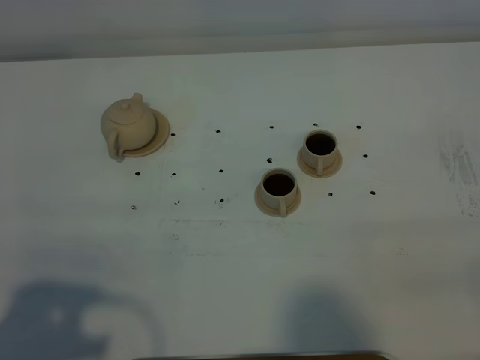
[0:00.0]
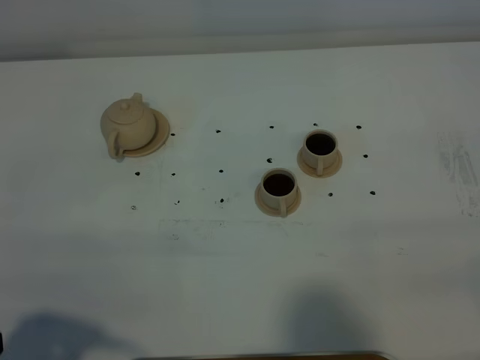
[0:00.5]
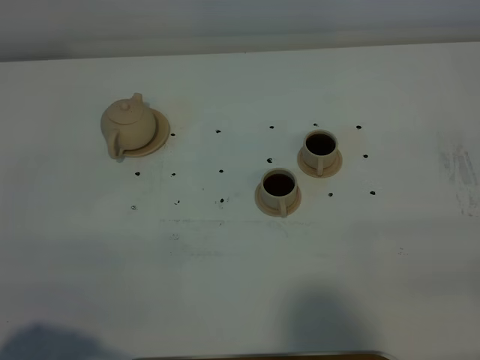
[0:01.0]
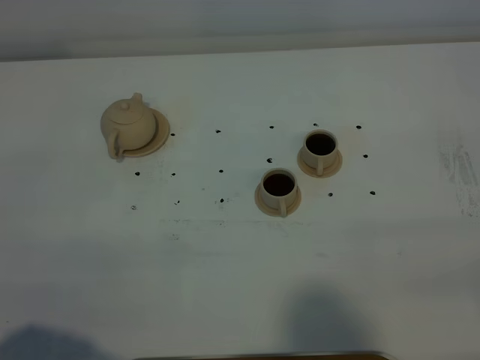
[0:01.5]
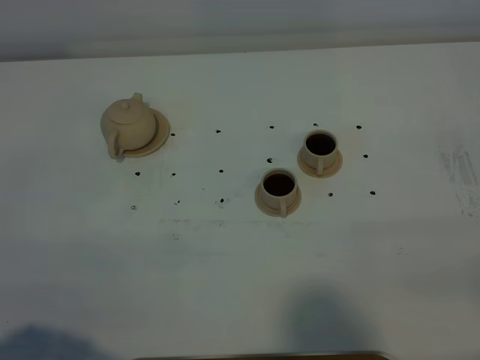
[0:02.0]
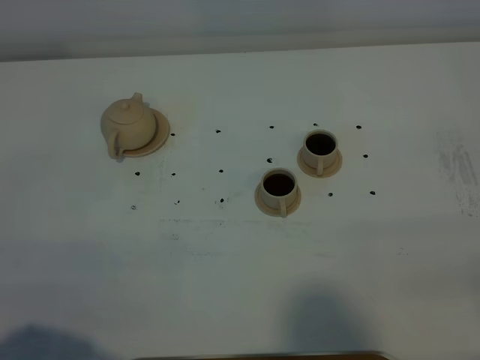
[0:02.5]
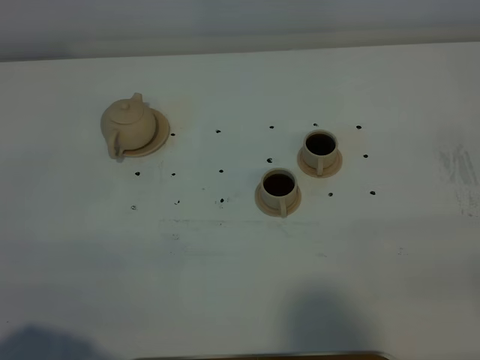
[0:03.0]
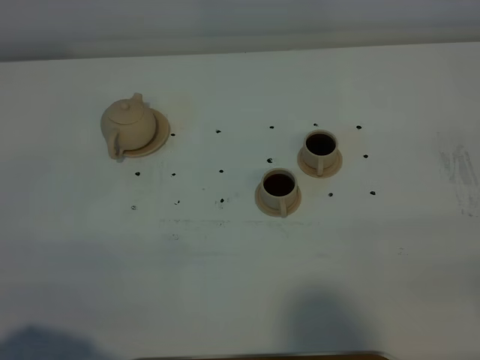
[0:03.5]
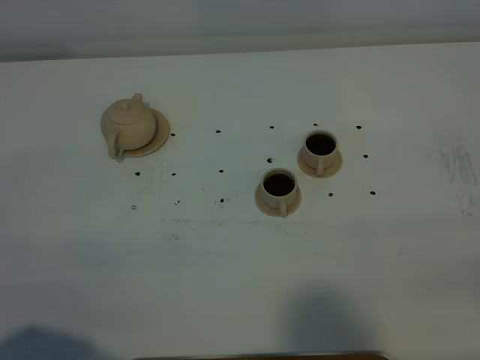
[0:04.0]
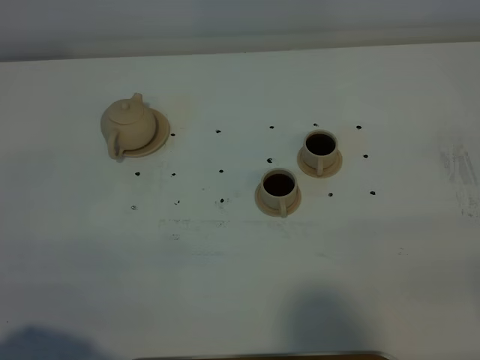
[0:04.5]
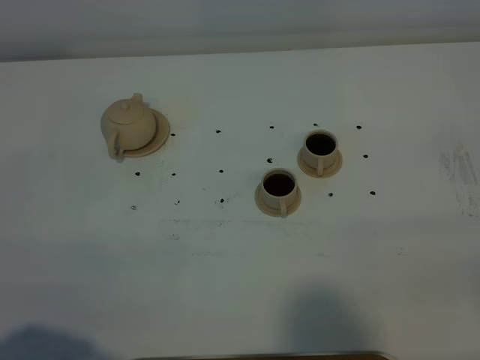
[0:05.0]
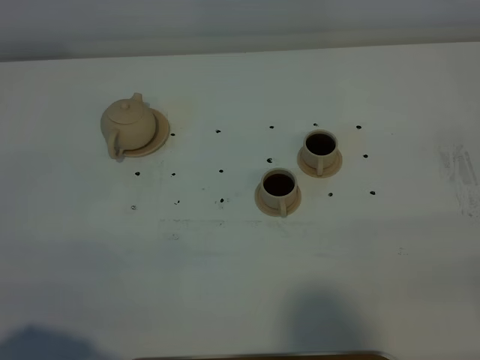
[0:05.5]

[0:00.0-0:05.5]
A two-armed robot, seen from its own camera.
Task of the whole recording: grasp the brown teapot and pour the tea into the two brown teacups one by one, put the brown teapot back in its original place.
0:00.0 to 0:02.0: The grippers make only small movements.
0:03.5 to 0:05.5: The two grippers keep their place.
